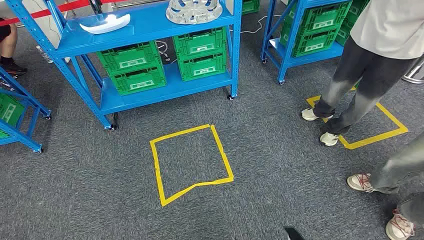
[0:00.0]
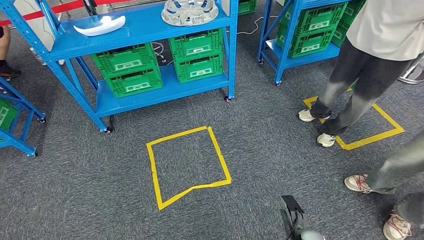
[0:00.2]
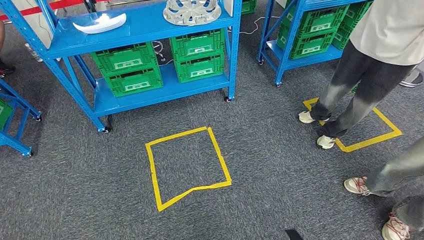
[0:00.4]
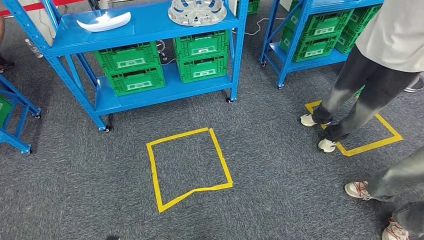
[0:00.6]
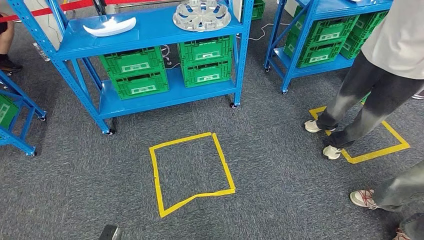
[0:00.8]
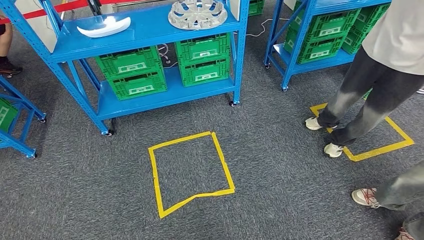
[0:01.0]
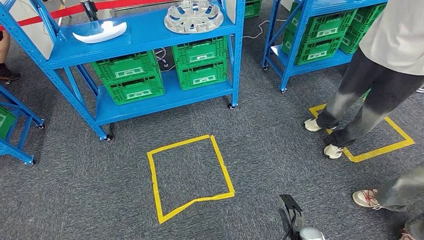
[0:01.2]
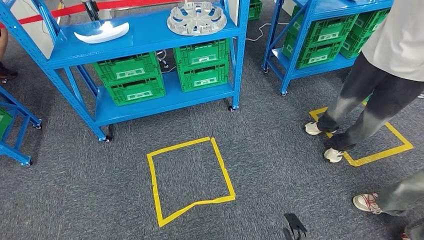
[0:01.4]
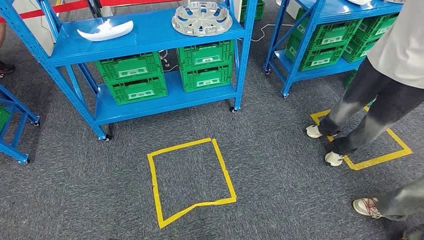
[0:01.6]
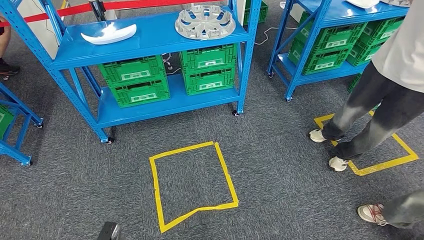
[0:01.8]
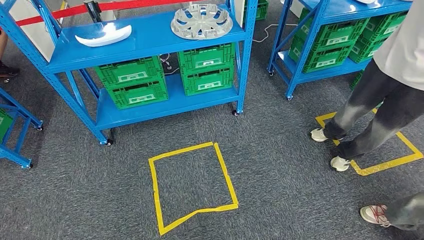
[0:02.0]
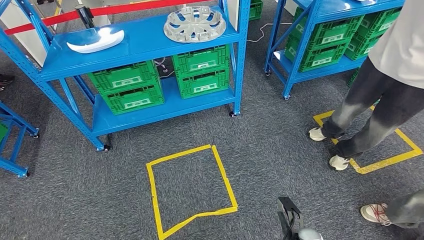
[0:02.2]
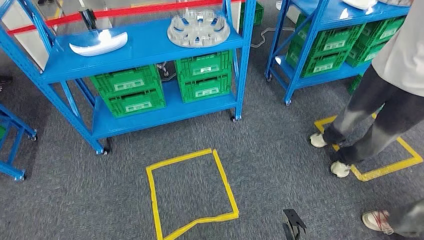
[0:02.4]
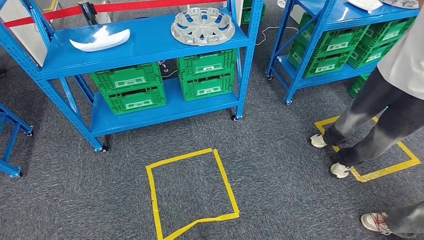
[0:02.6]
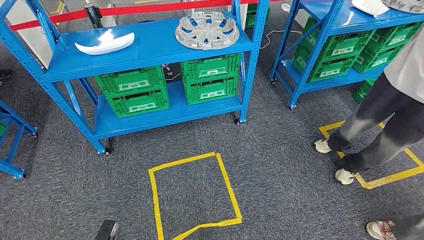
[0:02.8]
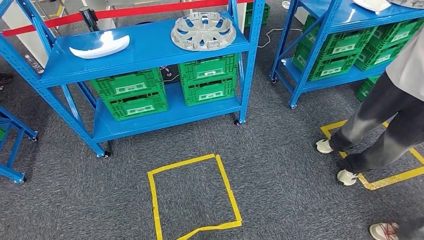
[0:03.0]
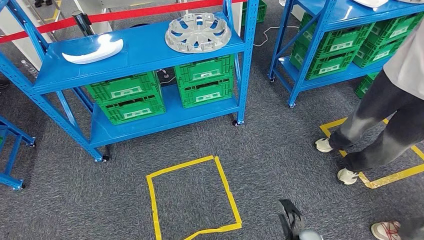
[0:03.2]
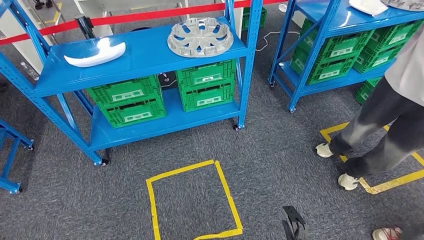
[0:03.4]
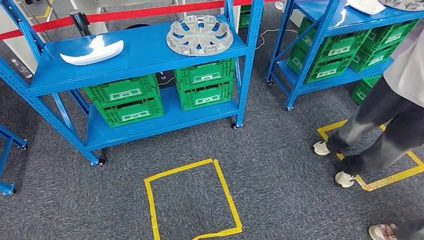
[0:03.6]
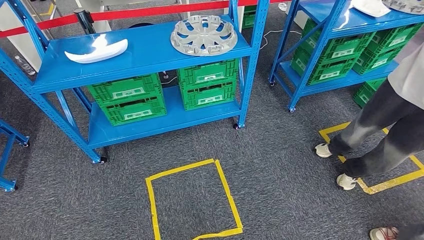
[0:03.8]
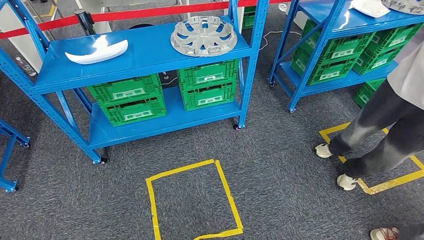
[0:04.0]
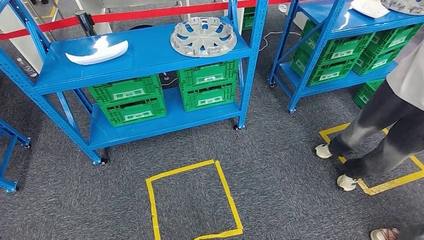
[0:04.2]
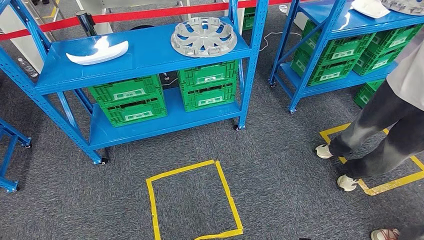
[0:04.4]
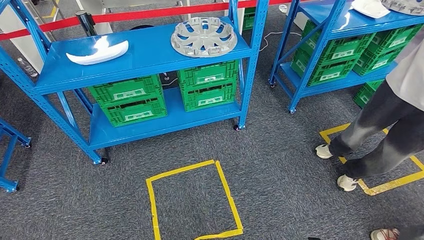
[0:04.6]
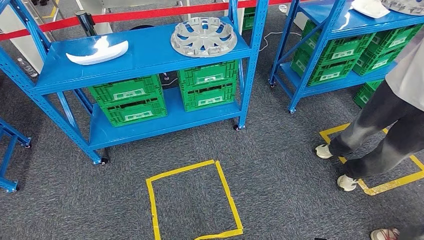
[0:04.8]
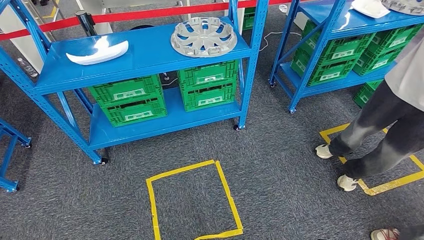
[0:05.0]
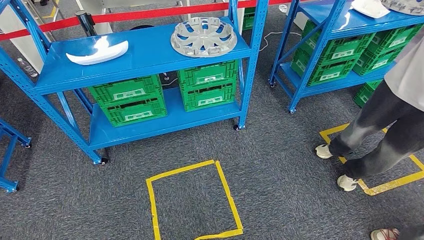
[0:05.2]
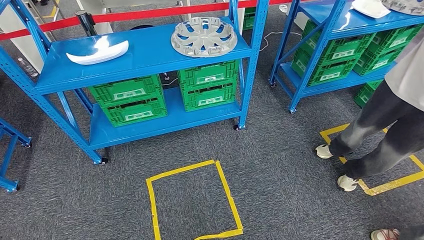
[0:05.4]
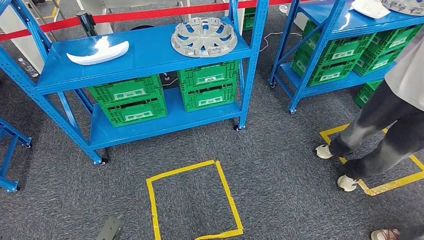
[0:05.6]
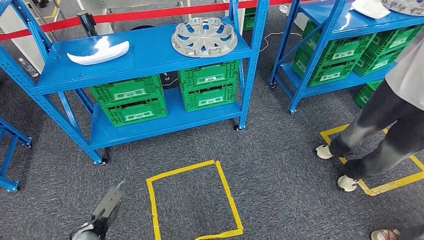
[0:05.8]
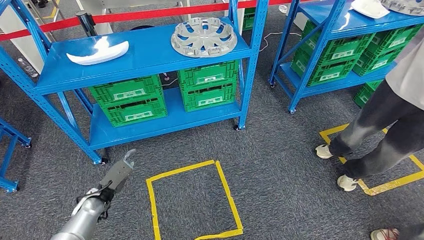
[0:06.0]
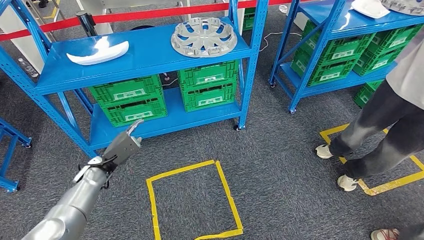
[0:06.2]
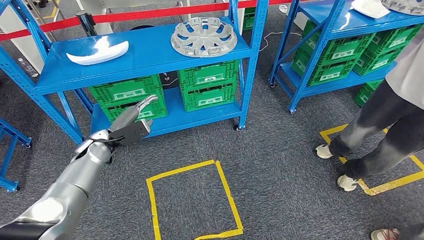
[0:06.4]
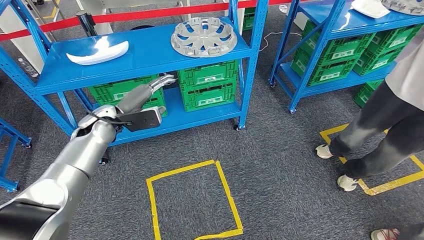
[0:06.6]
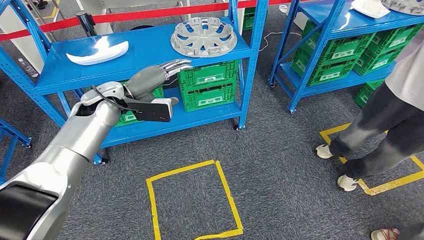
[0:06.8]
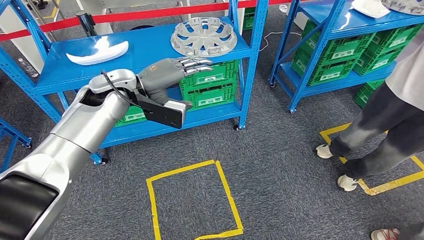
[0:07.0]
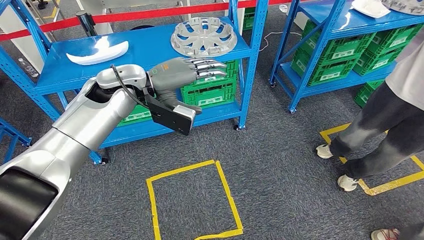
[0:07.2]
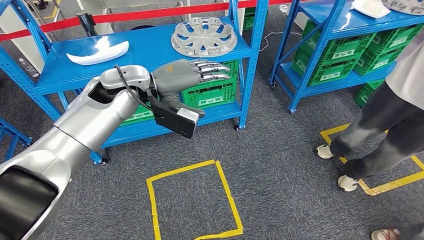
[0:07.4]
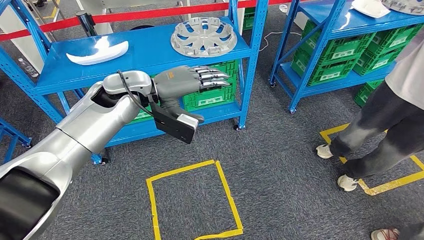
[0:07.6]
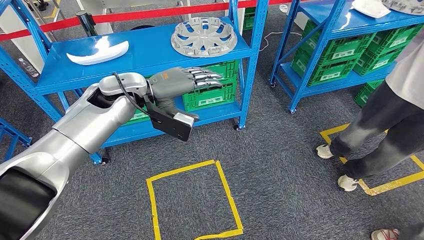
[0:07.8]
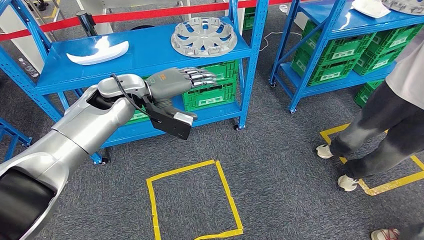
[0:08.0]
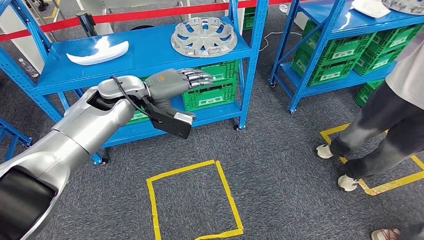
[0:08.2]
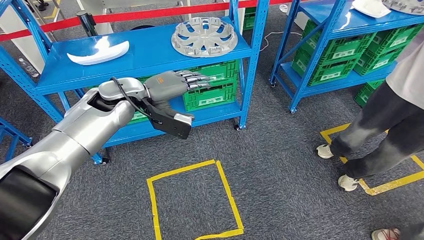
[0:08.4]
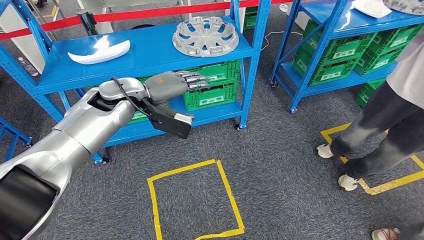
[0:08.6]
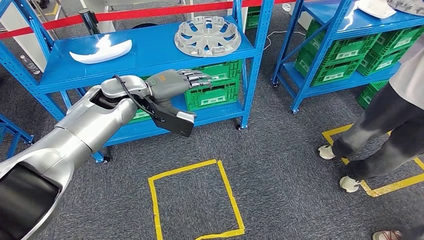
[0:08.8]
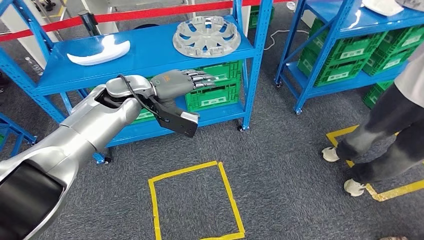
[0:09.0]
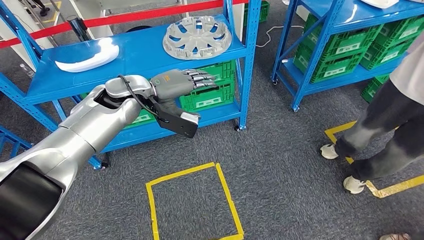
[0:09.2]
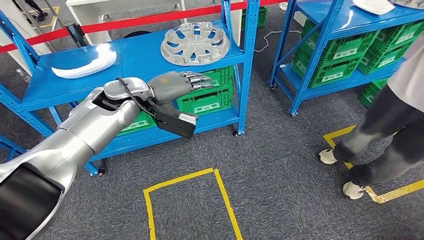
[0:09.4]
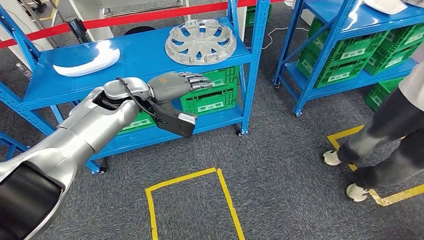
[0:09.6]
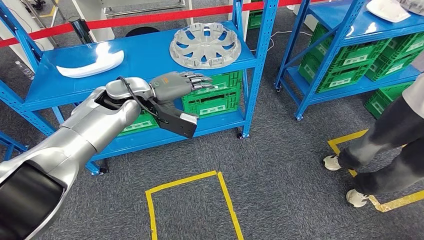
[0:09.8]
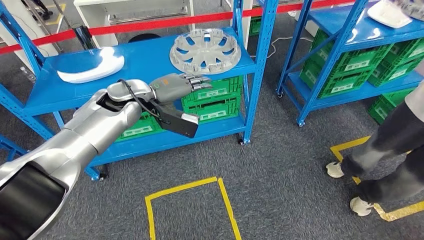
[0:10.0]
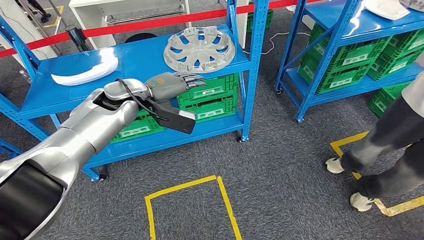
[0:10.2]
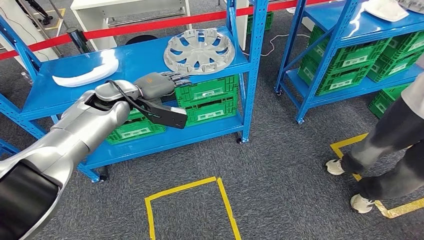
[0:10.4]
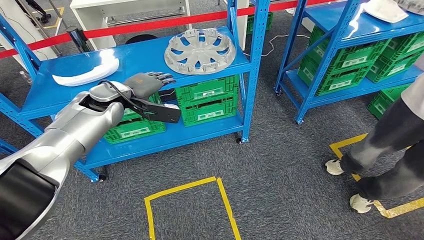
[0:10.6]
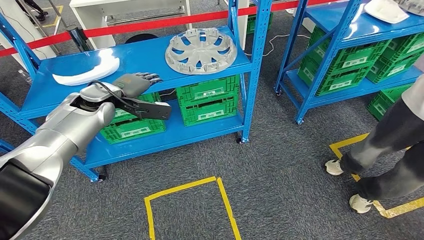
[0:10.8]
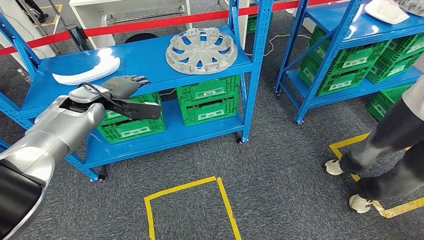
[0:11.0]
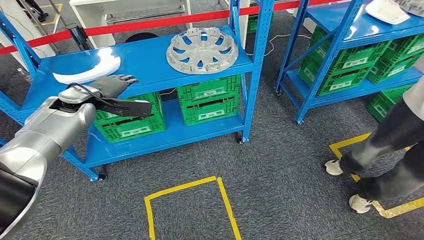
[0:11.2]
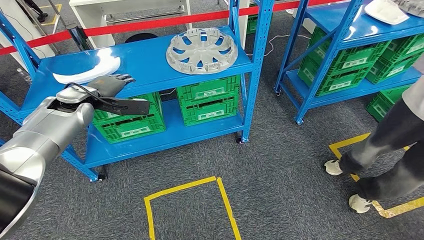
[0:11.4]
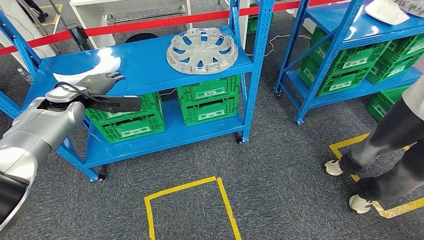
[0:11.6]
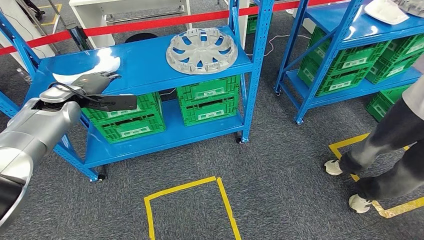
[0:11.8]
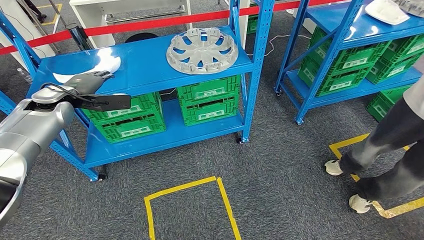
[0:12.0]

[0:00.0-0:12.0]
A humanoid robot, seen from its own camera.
0:04.4 to 0:06.0: The left hand travels forward by about 30 cm.
0:06.0 to 0:07.6: The left hand heads upward, to the right and forward, covering about 40 cm.

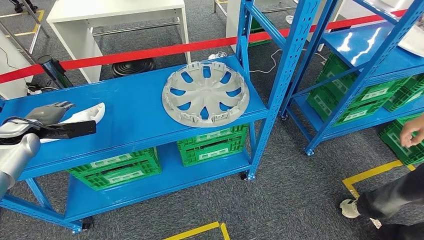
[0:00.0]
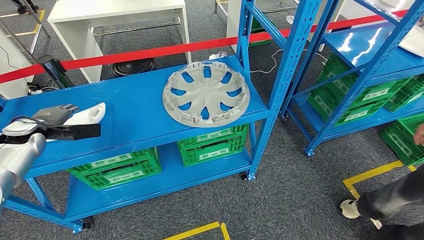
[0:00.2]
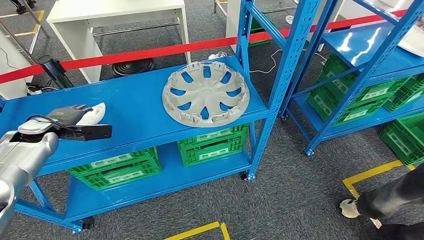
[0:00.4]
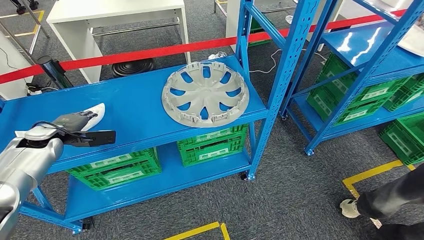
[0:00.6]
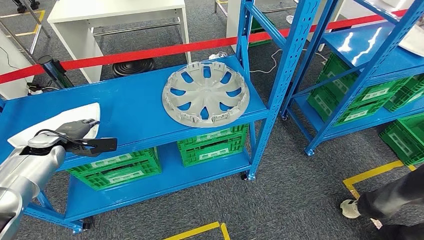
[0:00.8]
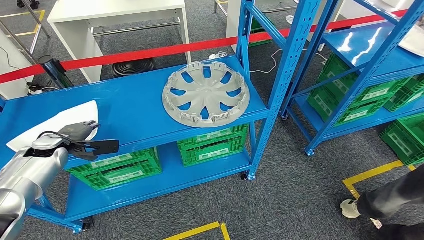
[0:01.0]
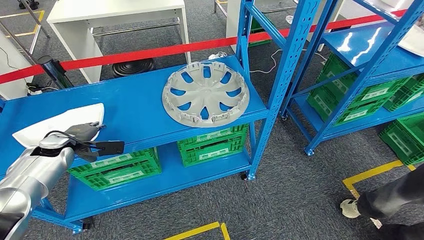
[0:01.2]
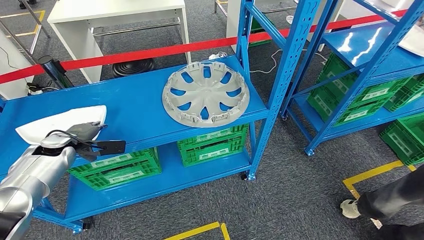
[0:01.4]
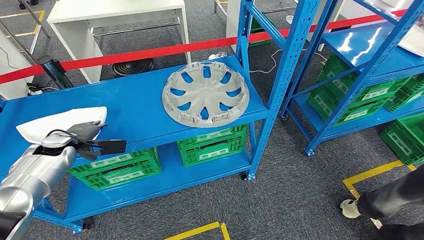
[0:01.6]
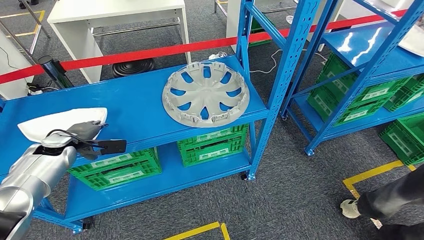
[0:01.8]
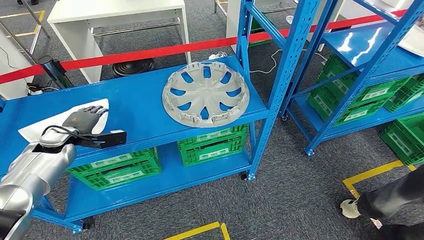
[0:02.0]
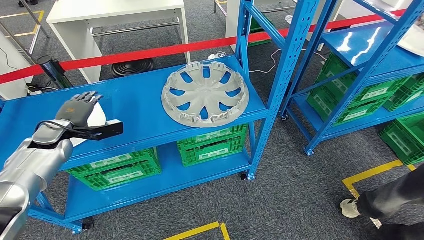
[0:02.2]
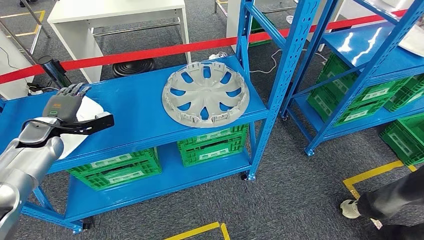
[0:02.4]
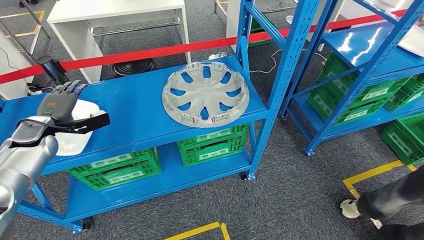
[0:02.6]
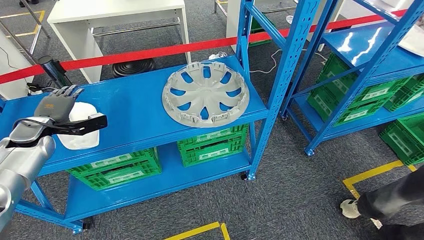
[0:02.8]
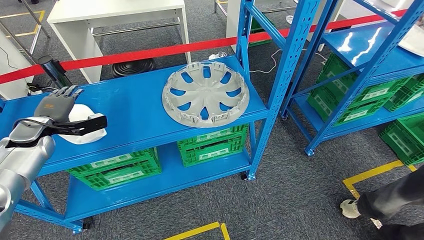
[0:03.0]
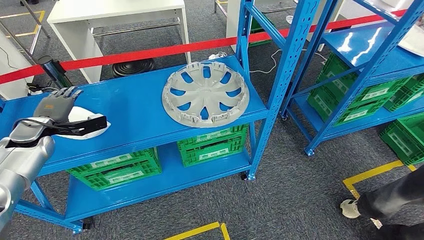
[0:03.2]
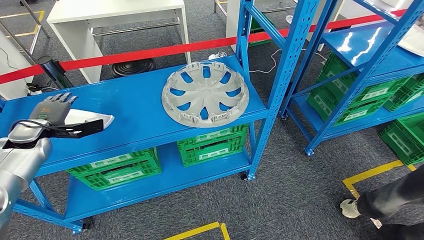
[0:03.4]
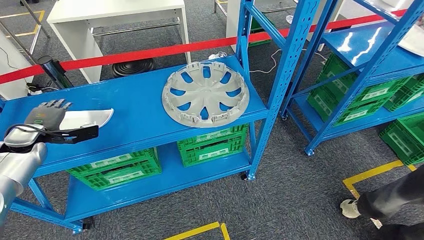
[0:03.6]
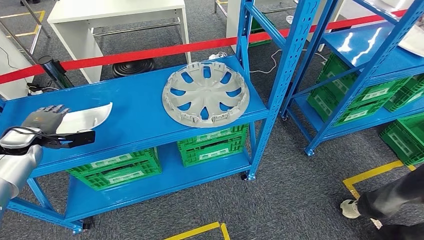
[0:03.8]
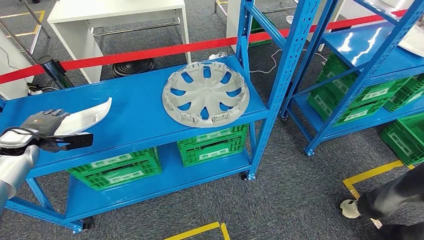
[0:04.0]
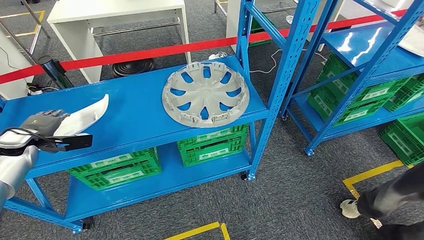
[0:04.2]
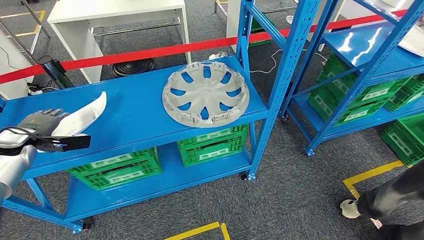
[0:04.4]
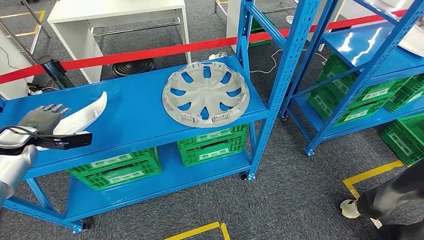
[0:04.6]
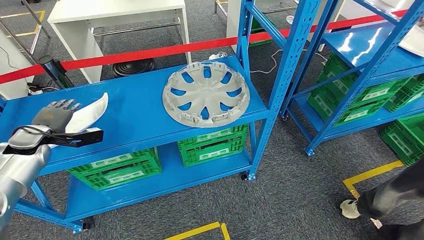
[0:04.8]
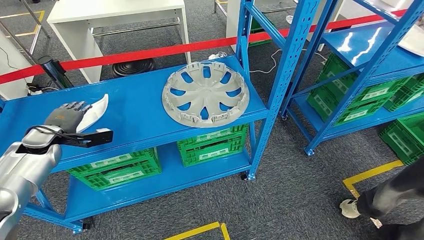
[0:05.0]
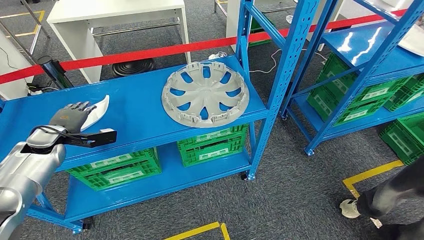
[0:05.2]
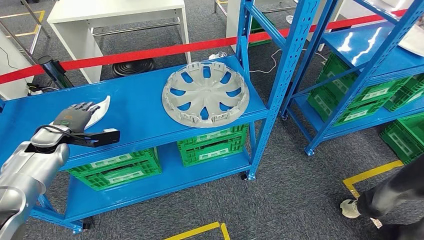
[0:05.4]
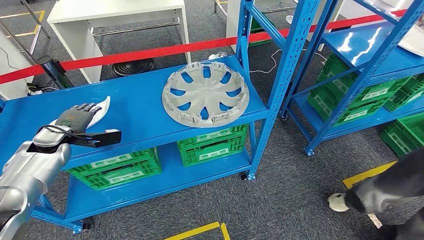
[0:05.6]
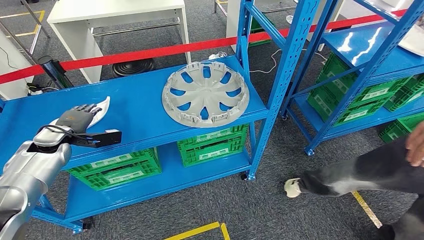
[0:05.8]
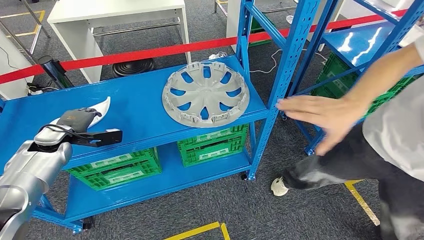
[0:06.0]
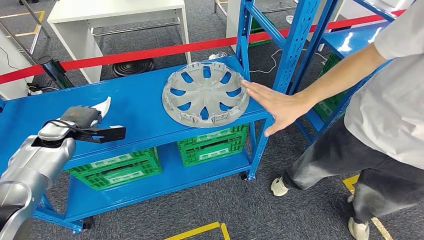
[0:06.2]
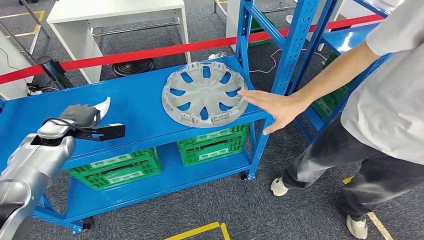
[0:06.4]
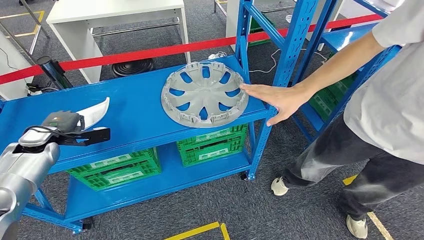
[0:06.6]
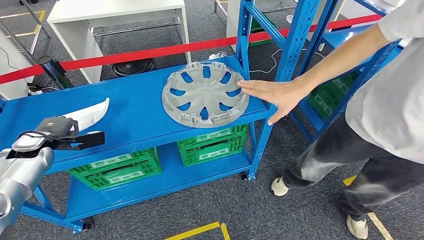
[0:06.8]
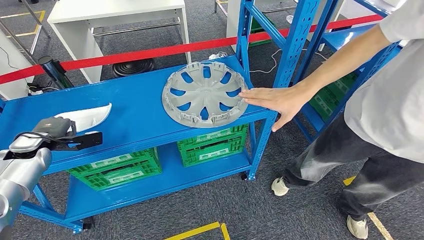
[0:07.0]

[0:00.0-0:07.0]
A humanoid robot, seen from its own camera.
0:00.0 to 0:01.4: The left hand travels to the right and downward by approximately 10 cm.
0:01.4 to 0:02.8: The left hand moves approximately 5 cm.
0:02.8 to 0:04.2: The left hand changes place by approximately 5 cm.
0:04.2 to 0:05.6: The left hand shifts some 10 cm to the right.
